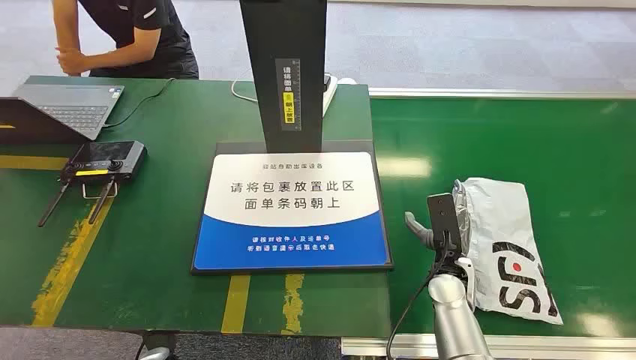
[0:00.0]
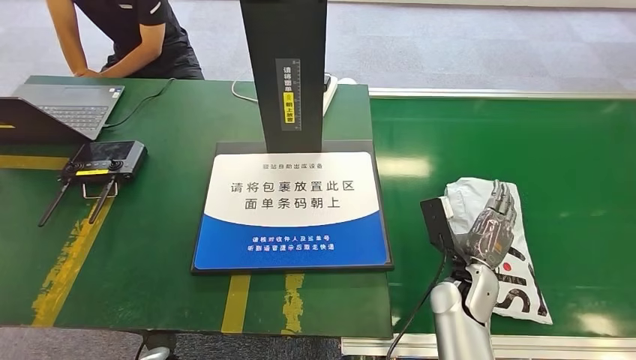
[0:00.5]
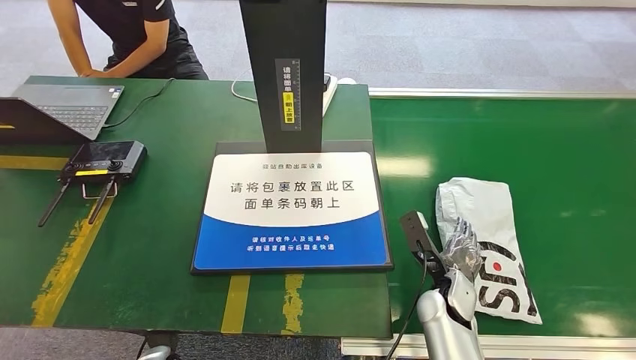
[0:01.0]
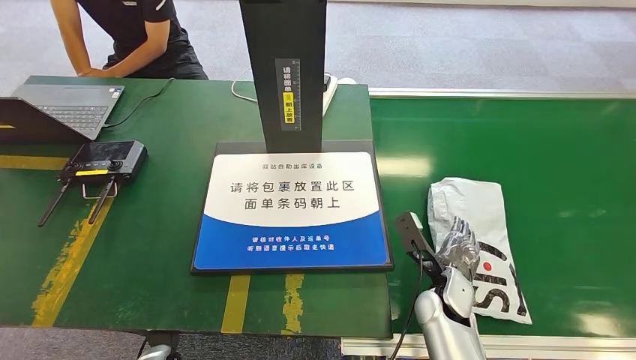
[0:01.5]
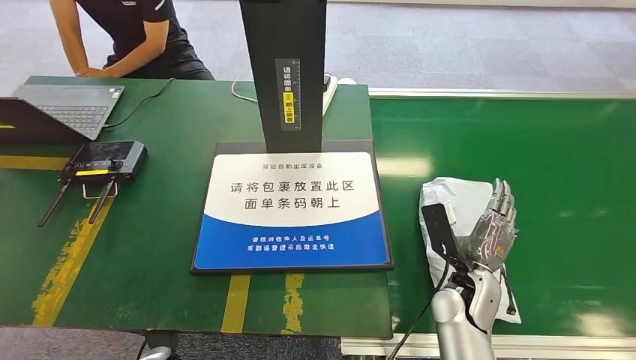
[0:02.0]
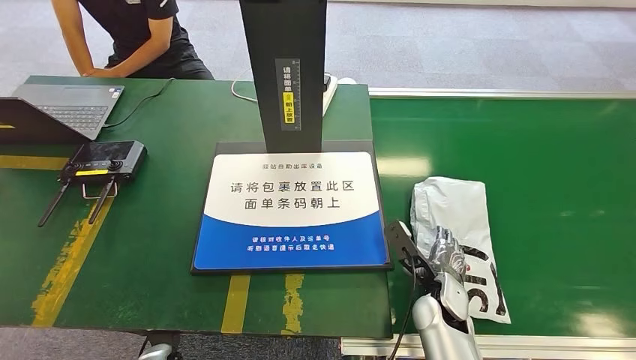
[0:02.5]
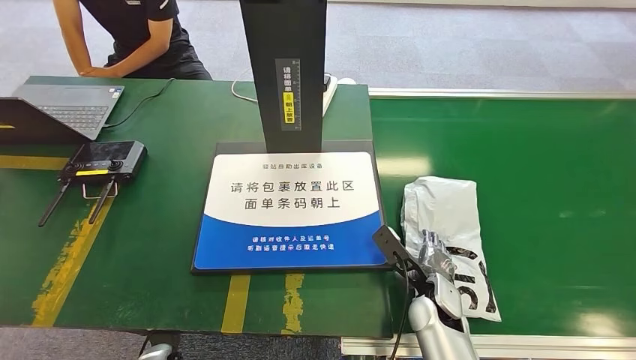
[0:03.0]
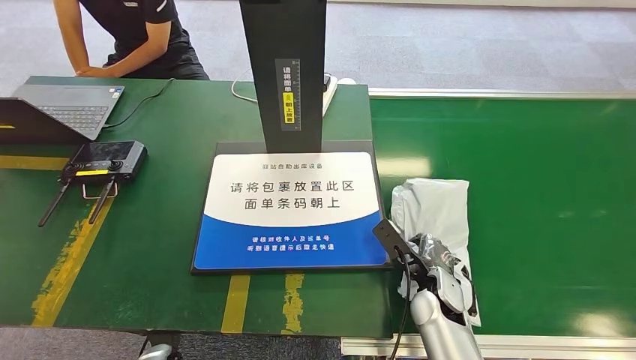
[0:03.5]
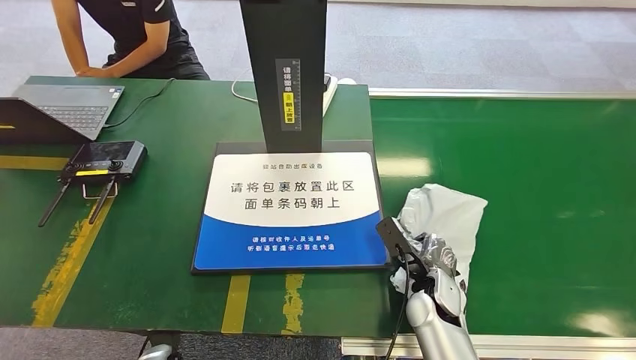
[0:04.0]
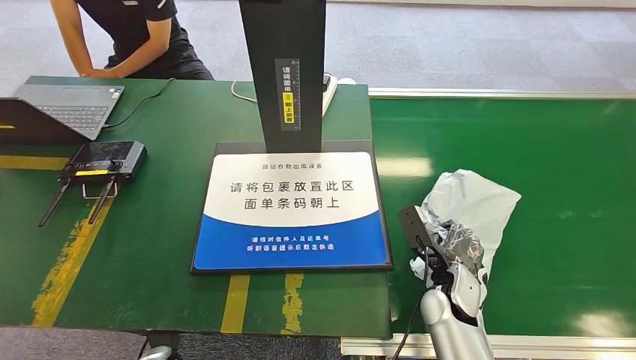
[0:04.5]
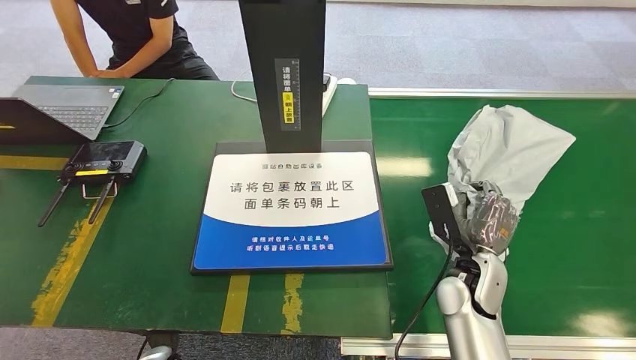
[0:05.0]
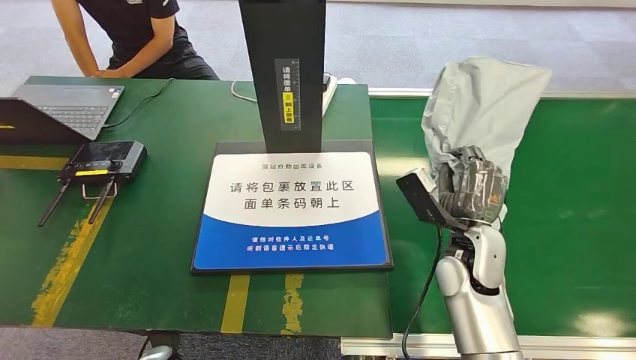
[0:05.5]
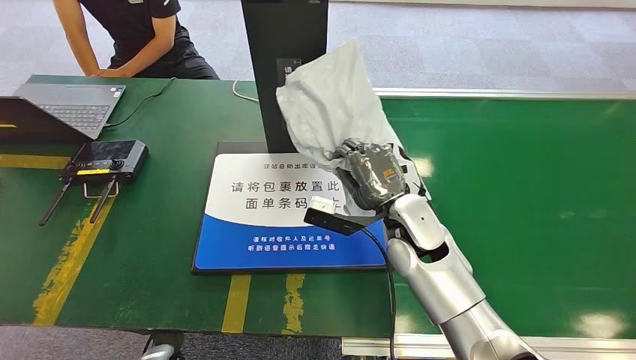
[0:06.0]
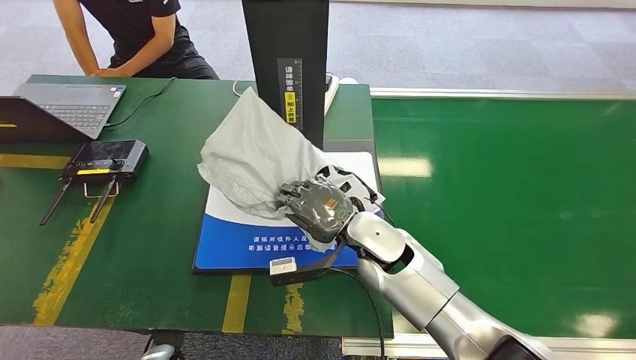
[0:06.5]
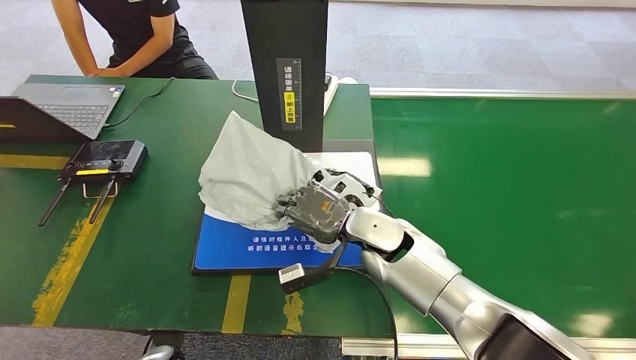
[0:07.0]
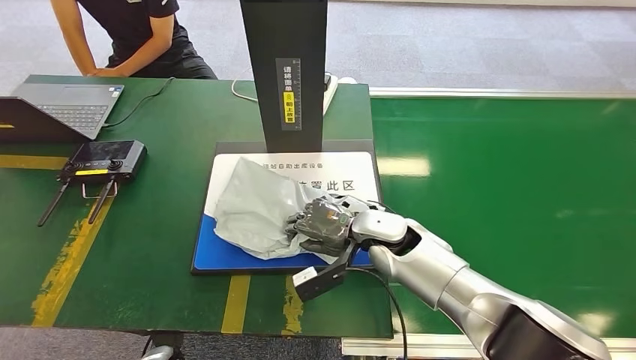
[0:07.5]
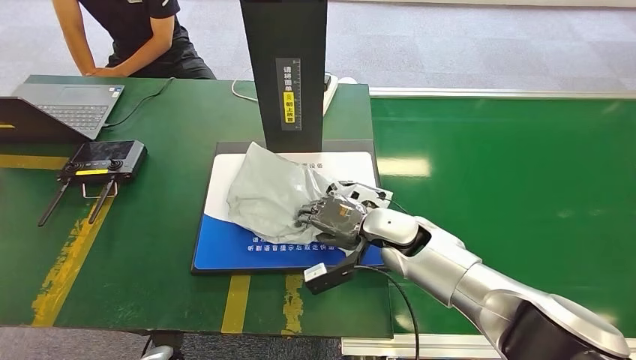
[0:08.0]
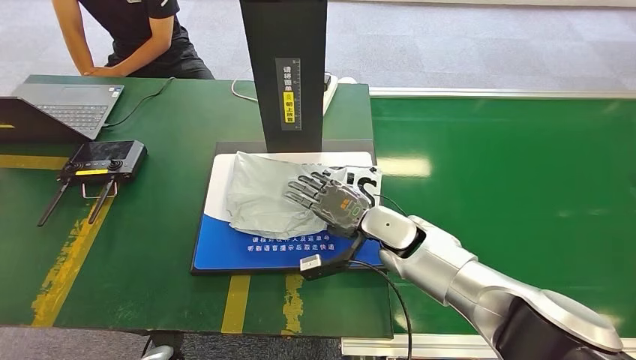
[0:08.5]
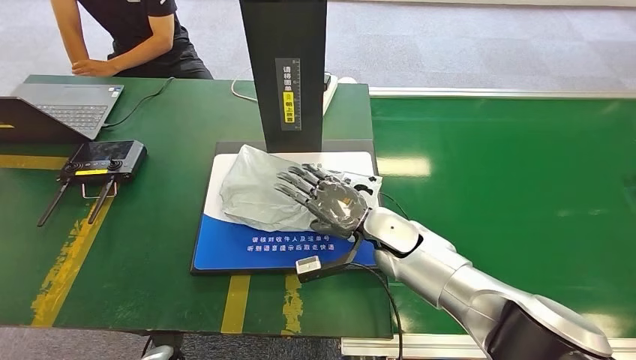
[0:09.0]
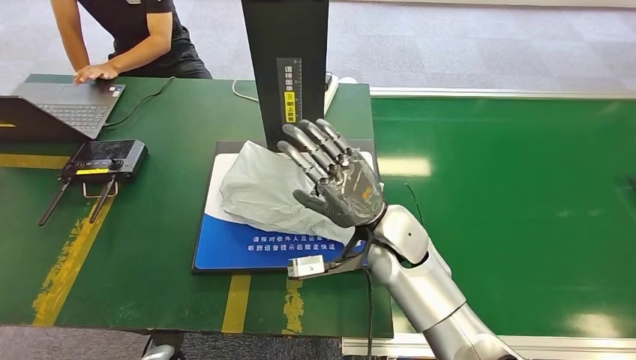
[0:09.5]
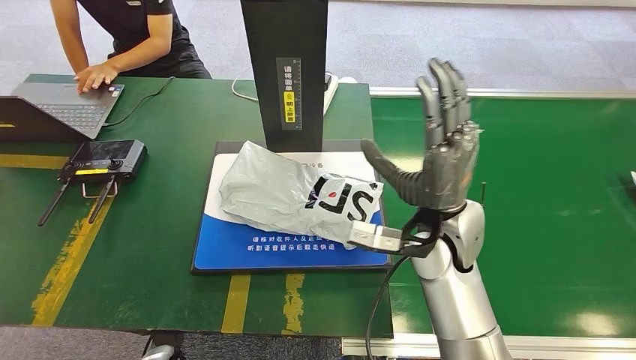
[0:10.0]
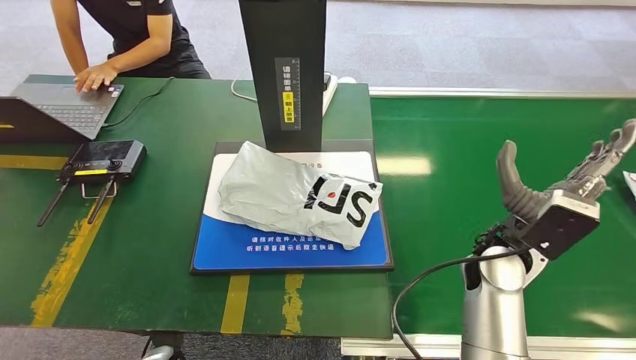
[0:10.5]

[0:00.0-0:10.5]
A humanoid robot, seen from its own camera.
Step, 0:00.0 to 0:05.5: Pick up the package from the conveyor belt.
Step, 0:06.0 to 0:10.5: Place the package onto the inbound machine.
0:02.0 to 0:04.0: The right hand shifts by some 5 cm.
0:06.5 to 0:08.5: The right hand shifts by approximately 5 cm.
0:08.5 to 0:10.5: The right hand goes roughly 15 cm to the right and backward.
